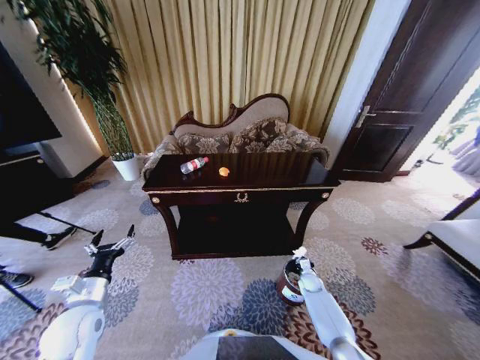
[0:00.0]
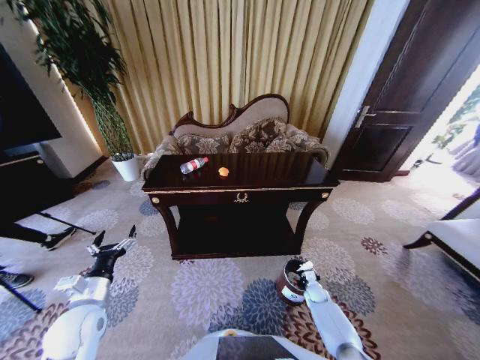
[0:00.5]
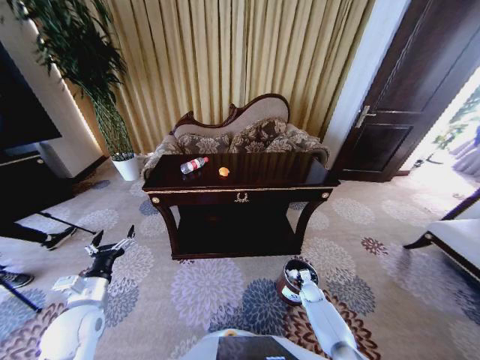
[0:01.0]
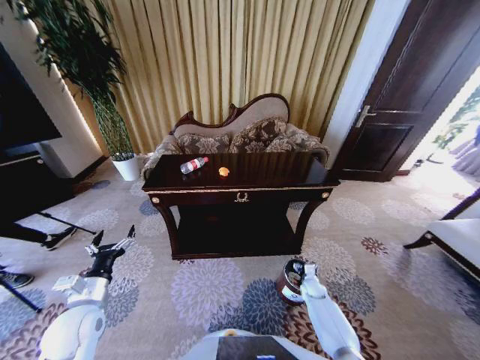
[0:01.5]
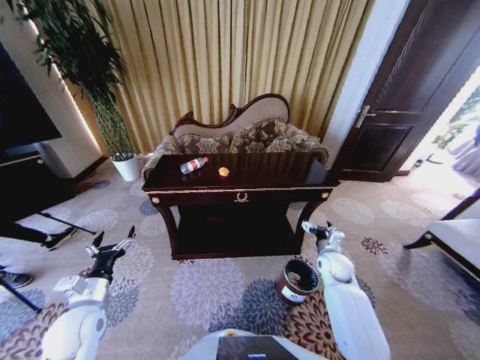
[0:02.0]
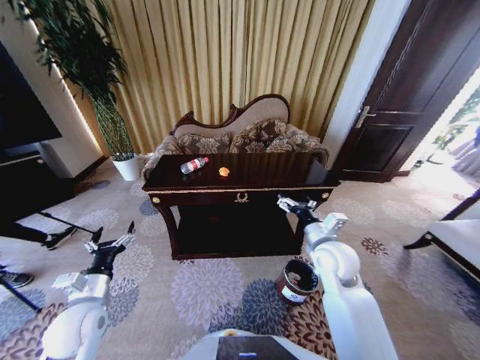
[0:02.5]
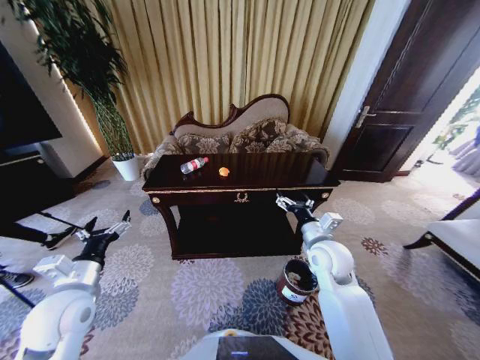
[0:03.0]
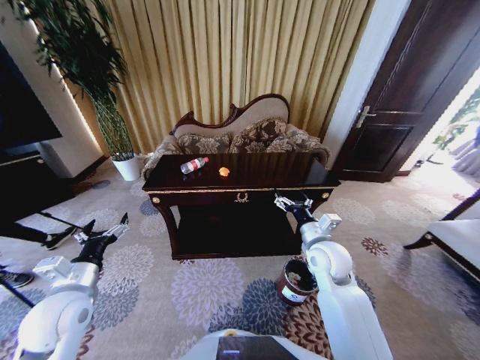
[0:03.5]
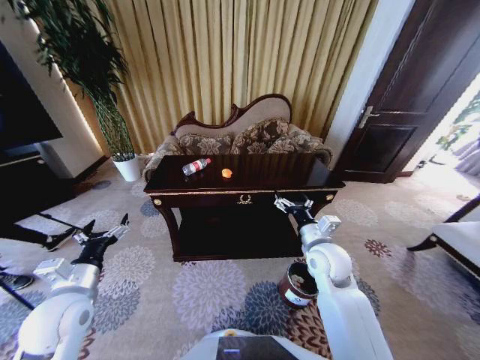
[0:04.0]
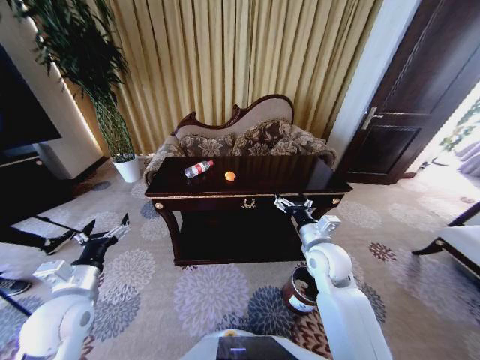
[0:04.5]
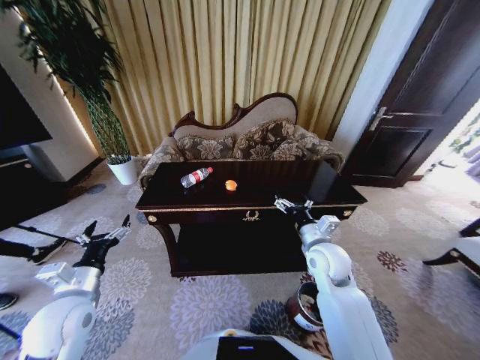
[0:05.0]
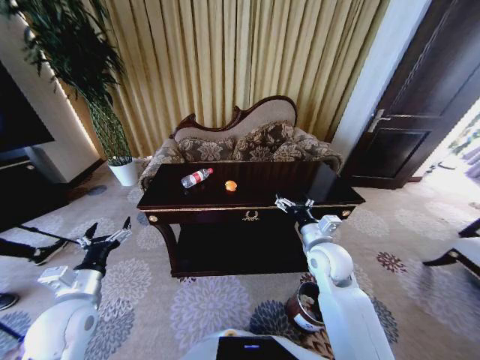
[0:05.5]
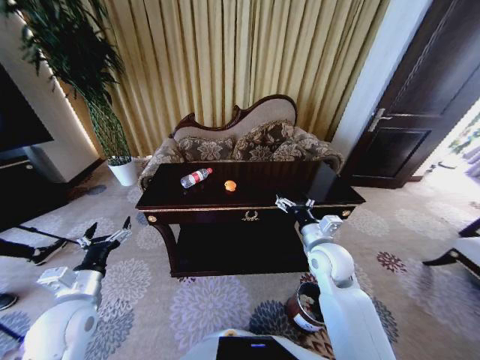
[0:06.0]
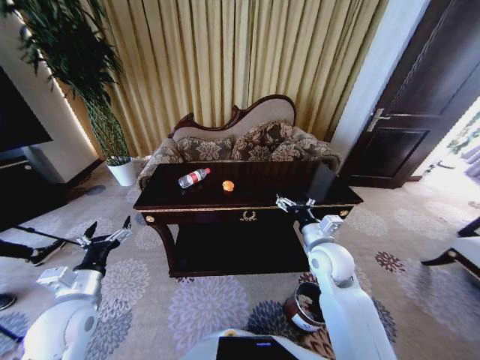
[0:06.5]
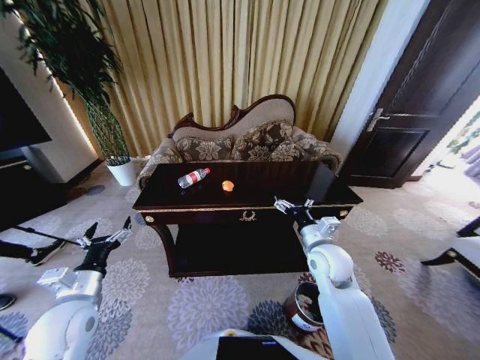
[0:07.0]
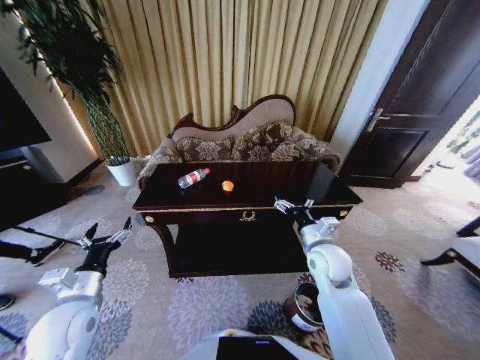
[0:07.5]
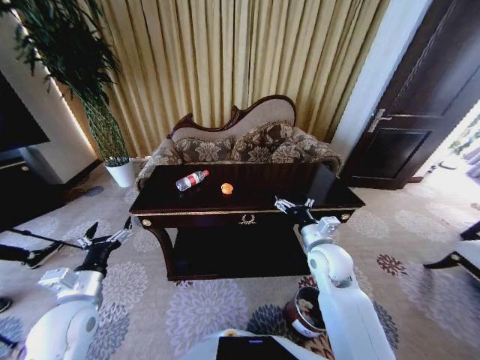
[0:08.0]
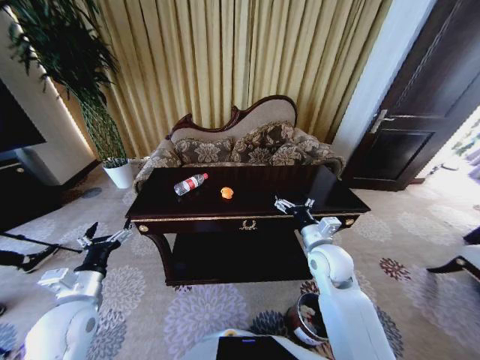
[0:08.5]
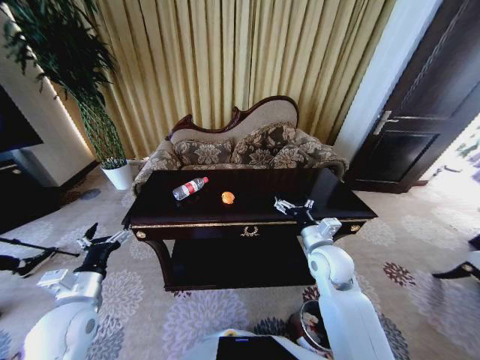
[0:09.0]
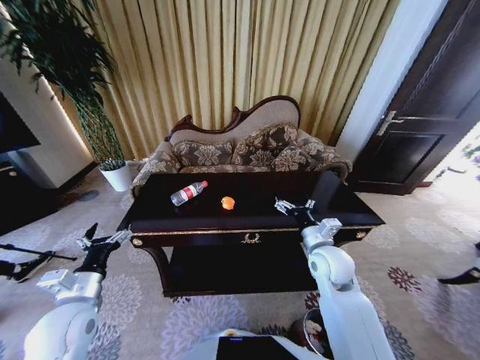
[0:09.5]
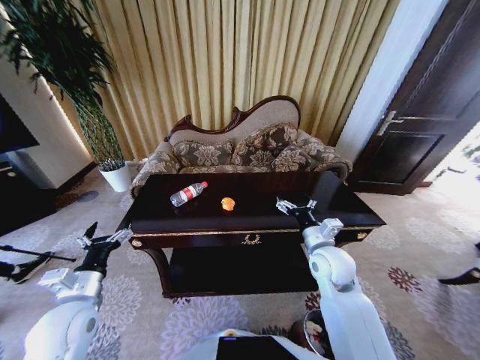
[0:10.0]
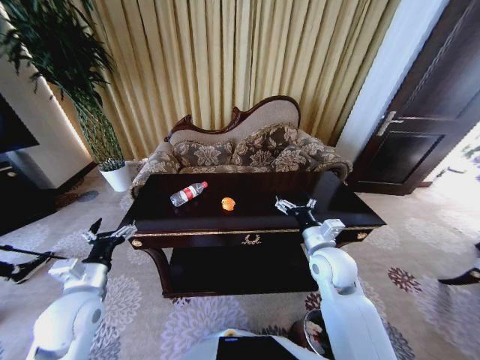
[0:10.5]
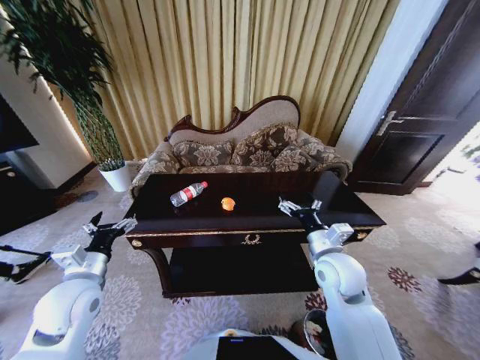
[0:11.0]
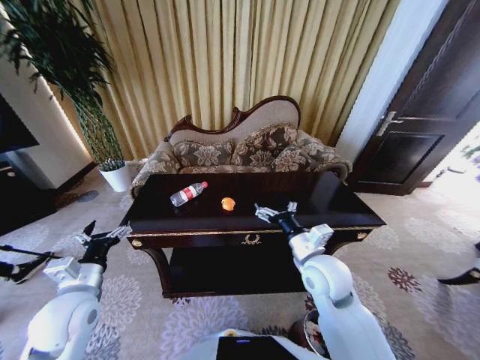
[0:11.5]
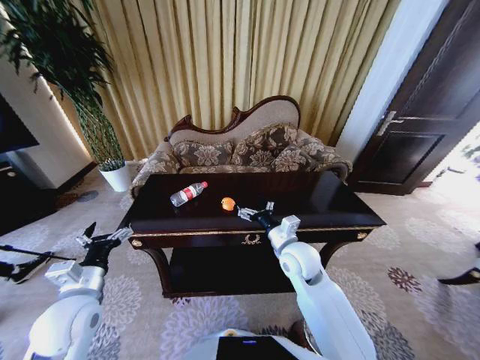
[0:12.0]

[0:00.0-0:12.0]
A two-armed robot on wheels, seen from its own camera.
Task of the whole recording: Move to the front of the table and place the trash on the table into the trash bin.
0:00.0 to 0:02.0: The right gripper shifts roughly 20 cm upward, and opens up.
0:02.0 to 0:04.0: The right gripper is displaced upward and to the left by some 15 cm. The left gripper is displaced upward by approximately 5 cm.
0:06.0 to 0:08.0: Neither gripper changes place.
0:10.0 to 0:12.0: The right gripper is displaced to the left by roughly 10 cm.

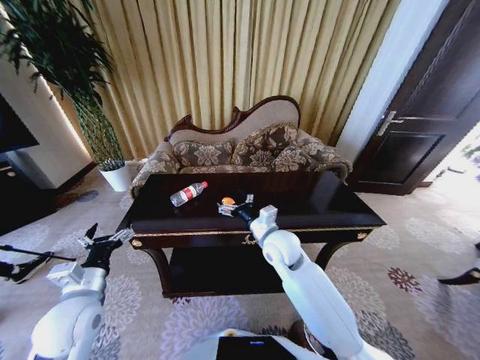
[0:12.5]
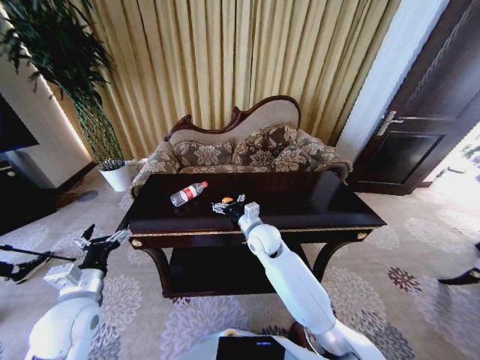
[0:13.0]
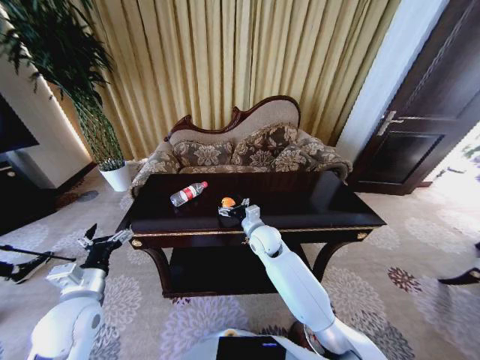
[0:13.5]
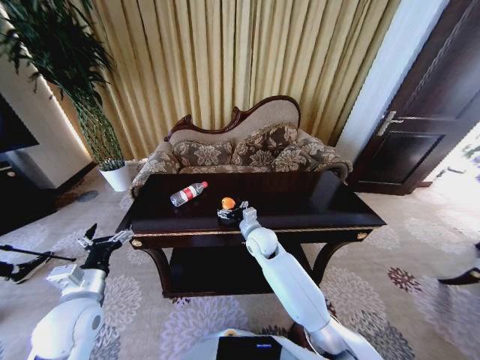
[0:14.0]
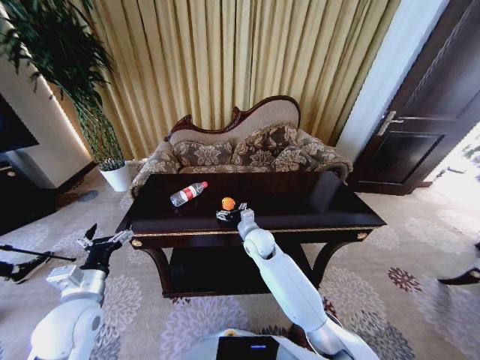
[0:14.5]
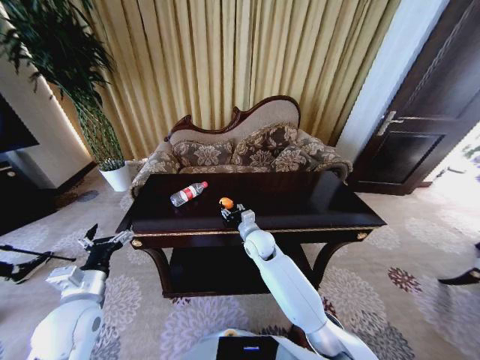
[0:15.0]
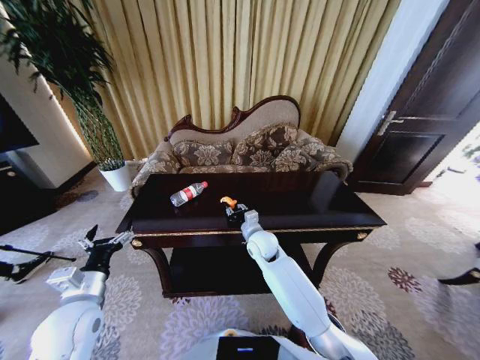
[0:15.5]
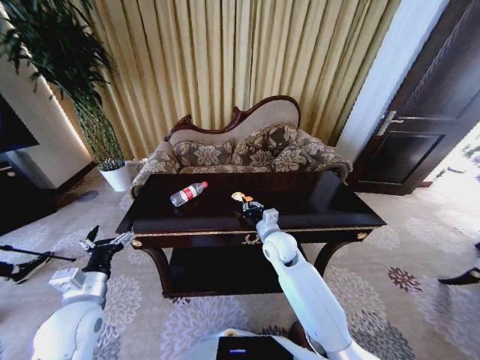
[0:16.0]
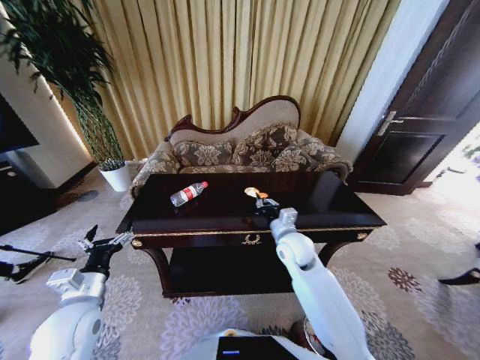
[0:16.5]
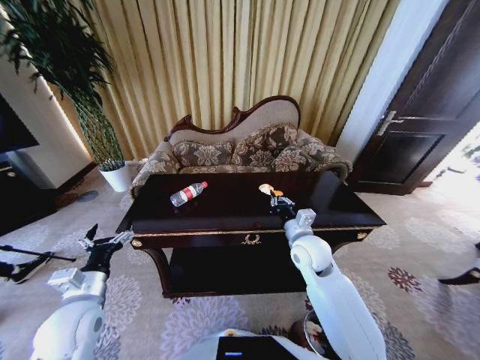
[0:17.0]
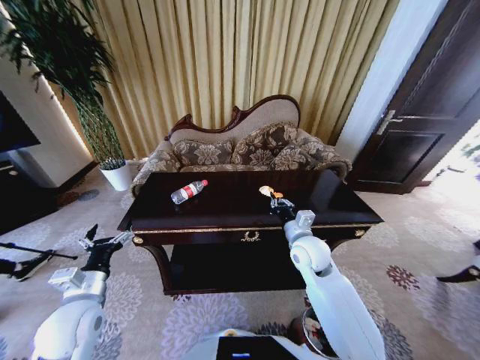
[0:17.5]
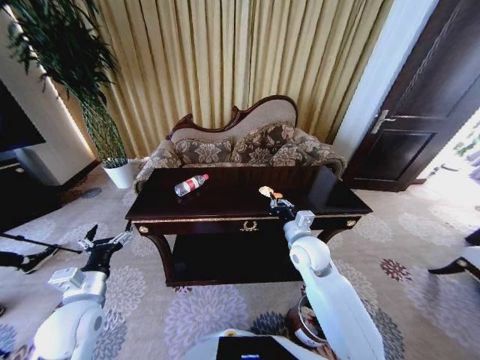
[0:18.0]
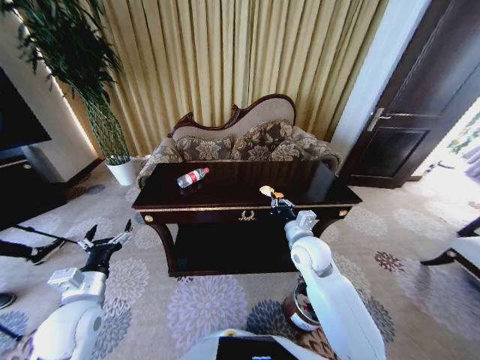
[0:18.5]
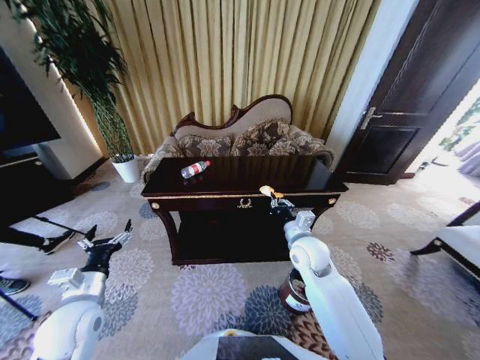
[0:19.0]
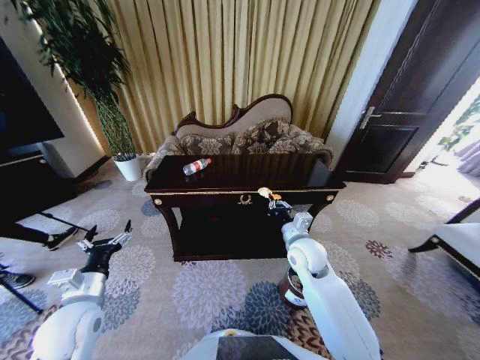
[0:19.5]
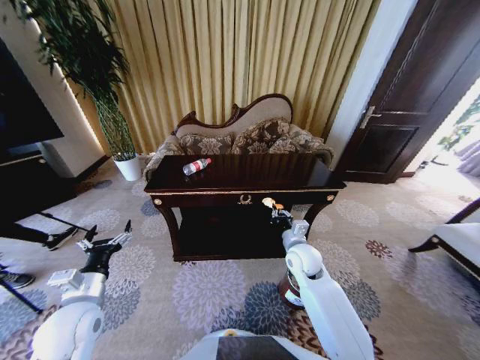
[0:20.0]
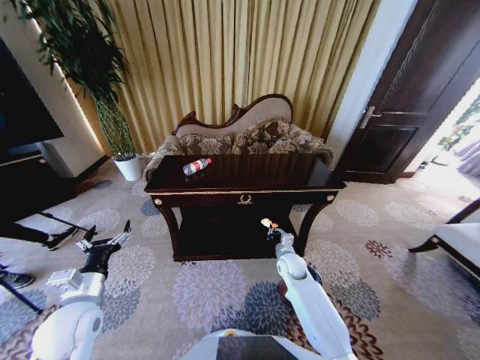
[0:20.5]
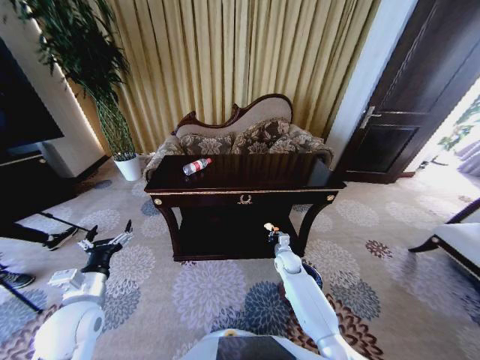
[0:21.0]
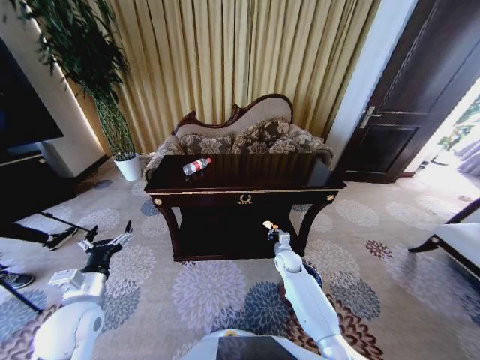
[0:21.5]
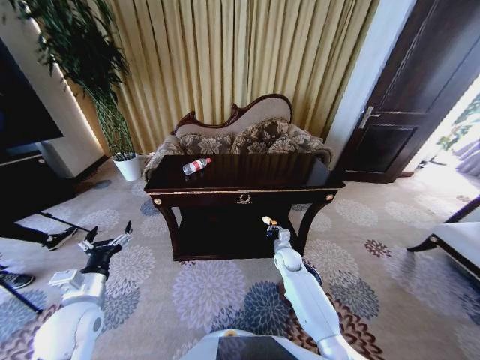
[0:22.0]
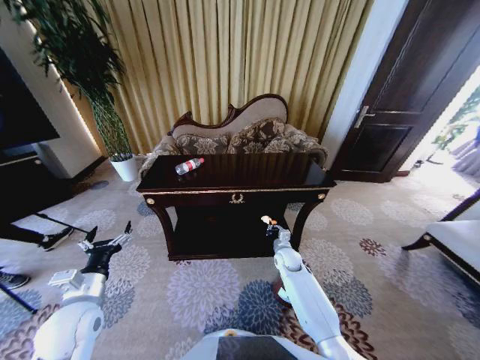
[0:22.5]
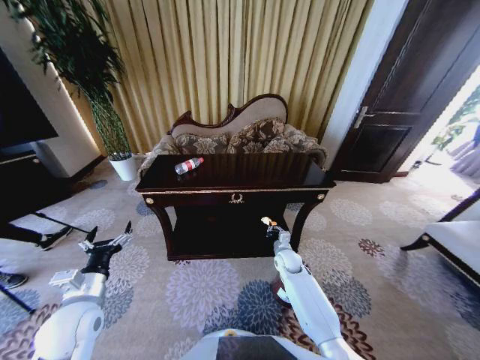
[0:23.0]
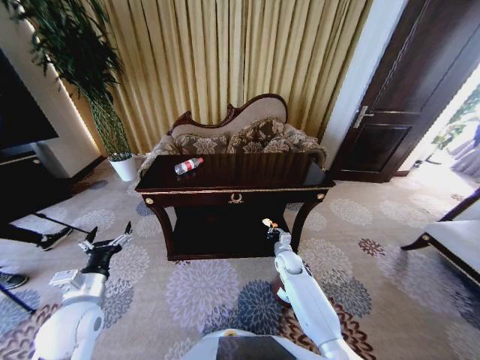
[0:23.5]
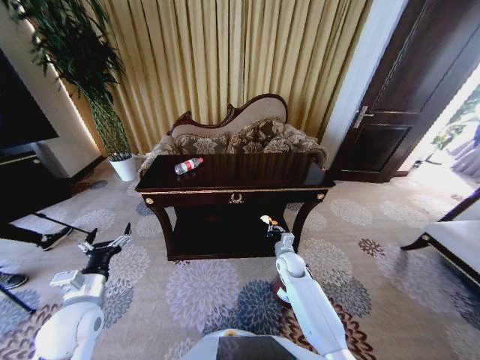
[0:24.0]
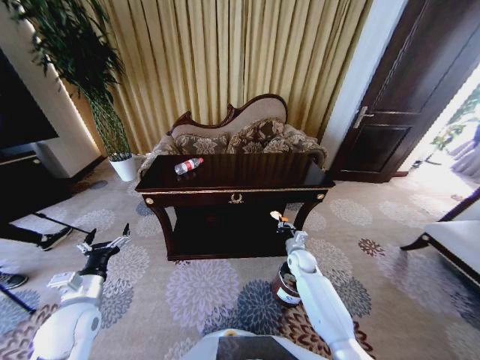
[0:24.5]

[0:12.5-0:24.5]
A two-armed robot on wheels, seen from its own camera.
Task of the whole recording: Move to the front of the table and place the trash on the table into the trash bin.
0:12.5 to 0:14.5: The right gripper moves downward and forward, approximately 10 cm.
0:14.5 to 0:16.5: The right gripper goes roughly 10 cm to the right and backward, and closes its fingers.
0:18.5 to 0:20.5: The right gripper goes about 15 cm downward.
0:22.5 to 0:24.5: The right gripper heads to the right, covering about 5 cm.

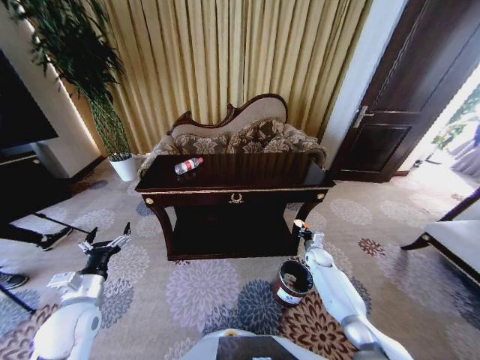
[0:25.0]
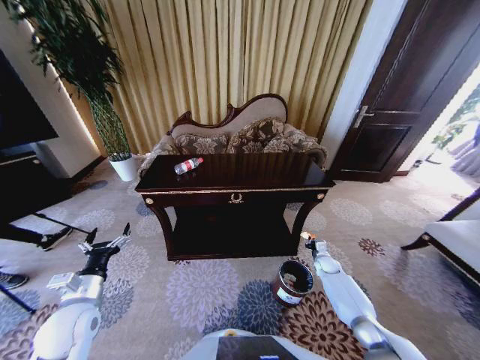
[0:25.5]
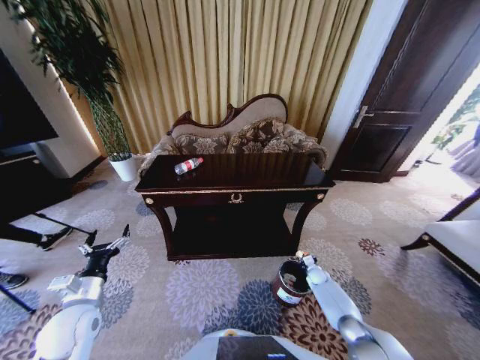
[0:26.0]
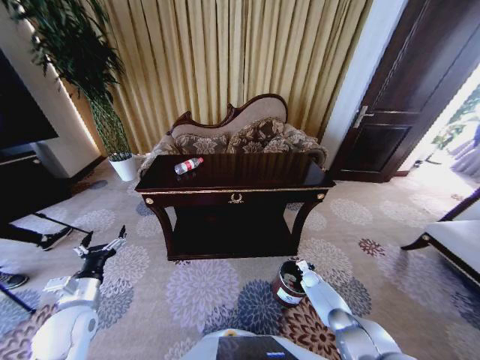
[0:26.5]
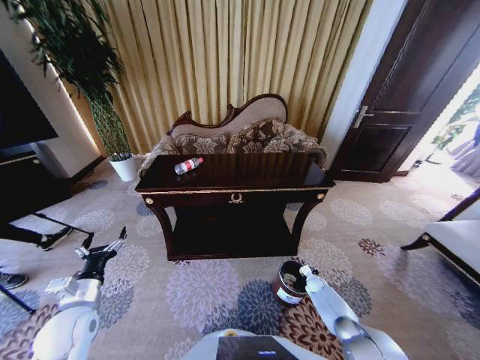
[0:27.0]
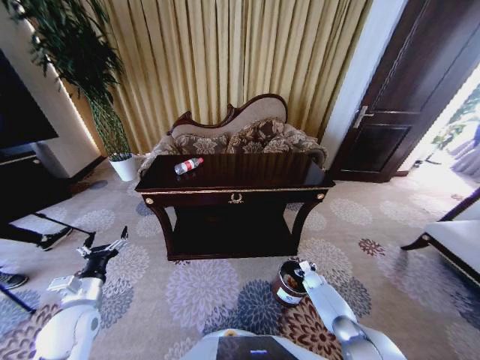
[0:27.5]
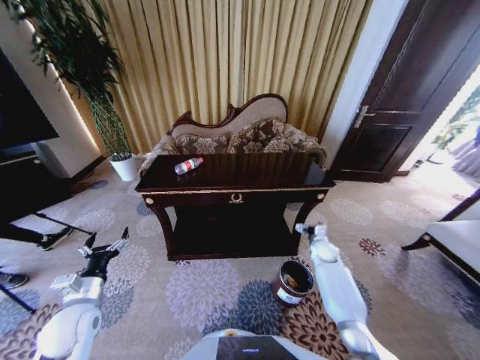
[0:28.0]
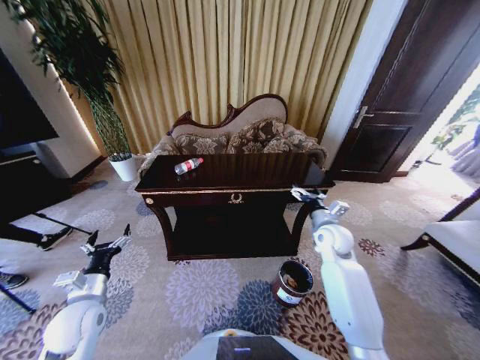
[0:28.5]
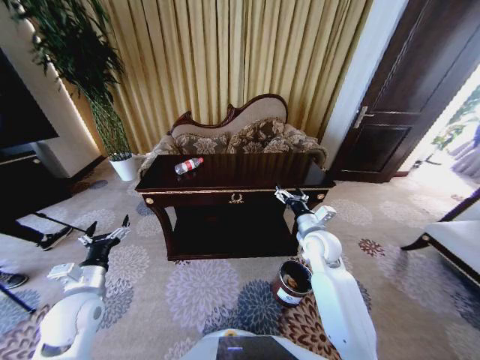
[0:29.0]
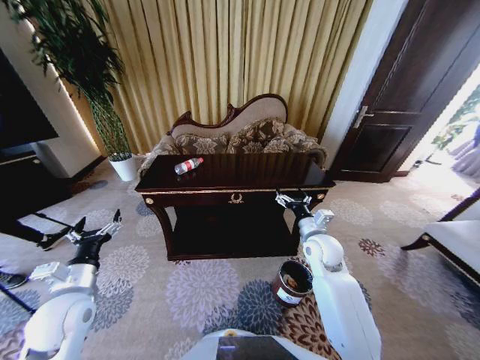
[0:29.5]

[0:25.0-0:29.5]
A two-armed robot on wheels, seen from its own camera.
Task of the whole recording: Move to the front of the table and place the trash on the table into the trash bin.
0:25.0 to 0:27.0: The right gripper moves downward and backward, about 15 cm.
0:27.0 to 0:29.5: The right gripper is displaced upward by some 35 cm, and opens its fingers. The left gripper goes some 5 cm upward.
